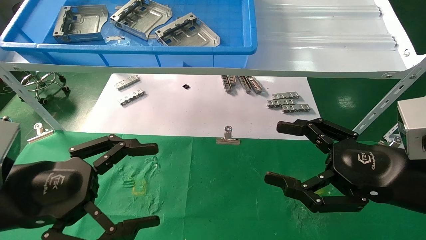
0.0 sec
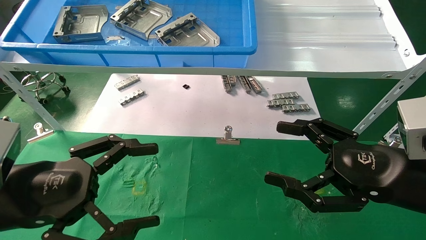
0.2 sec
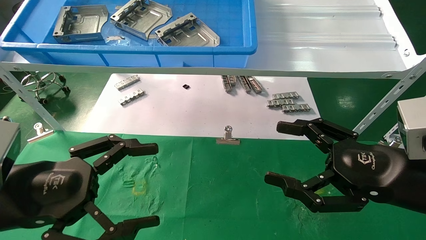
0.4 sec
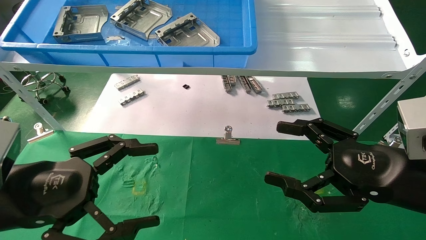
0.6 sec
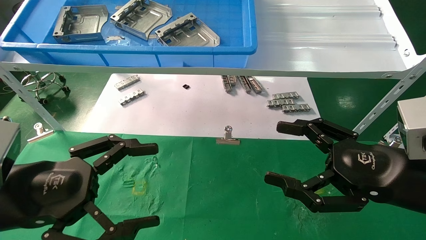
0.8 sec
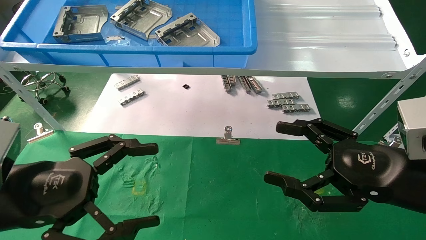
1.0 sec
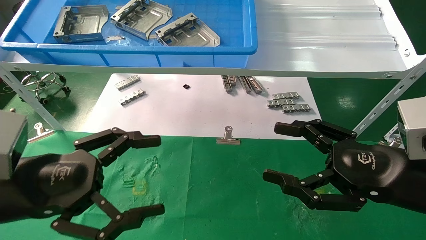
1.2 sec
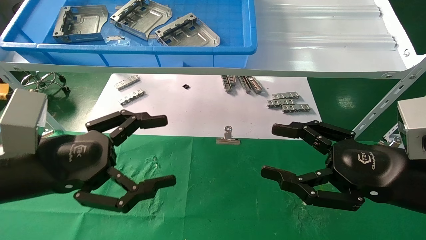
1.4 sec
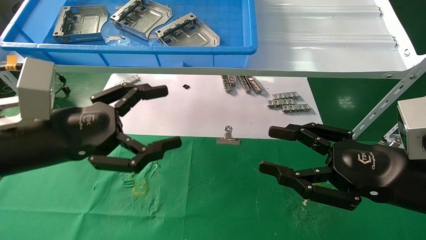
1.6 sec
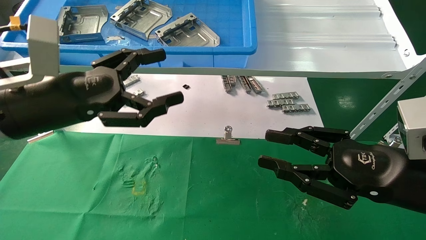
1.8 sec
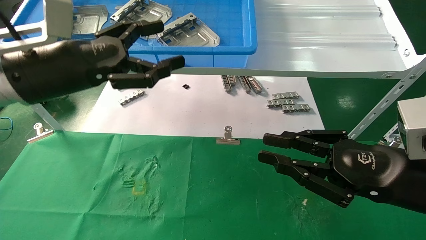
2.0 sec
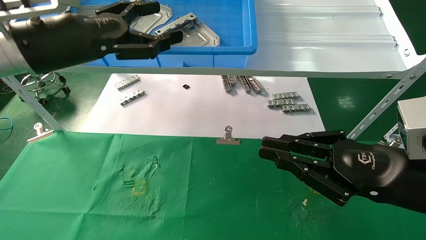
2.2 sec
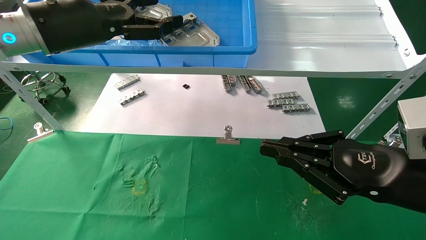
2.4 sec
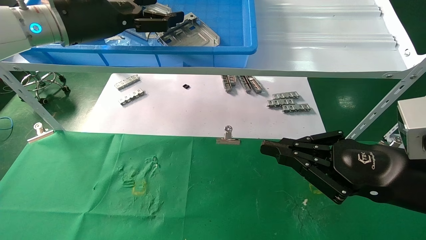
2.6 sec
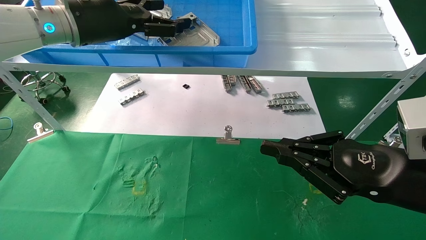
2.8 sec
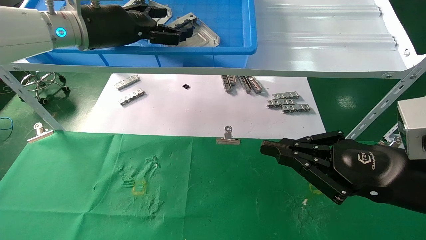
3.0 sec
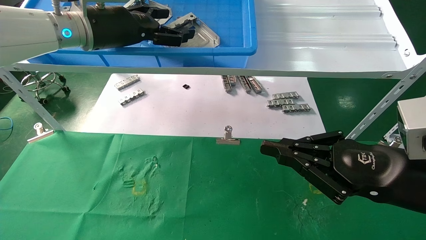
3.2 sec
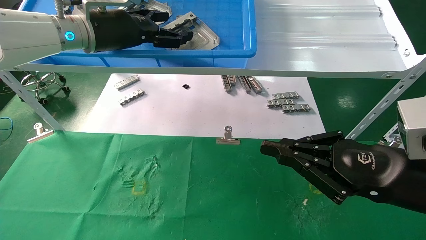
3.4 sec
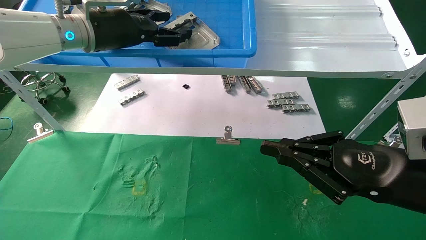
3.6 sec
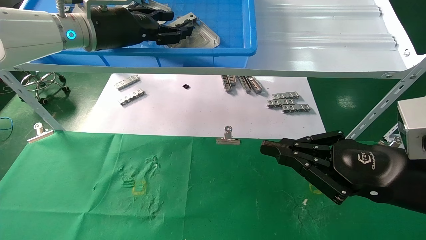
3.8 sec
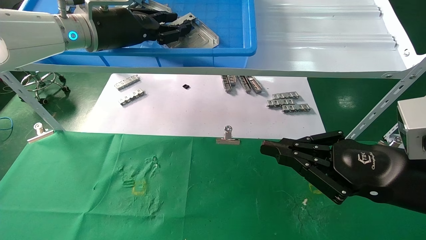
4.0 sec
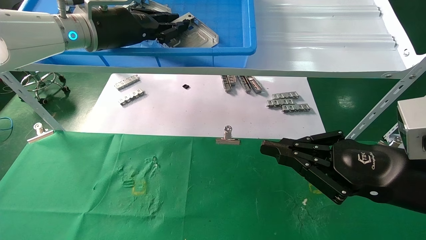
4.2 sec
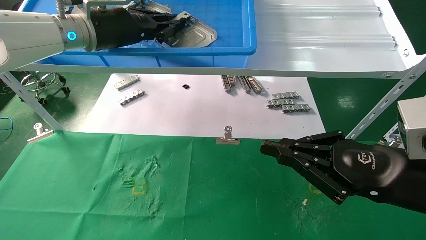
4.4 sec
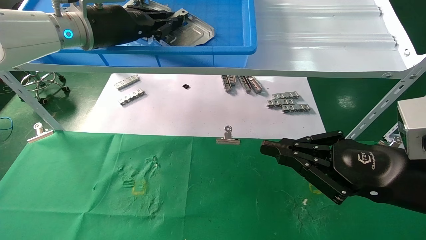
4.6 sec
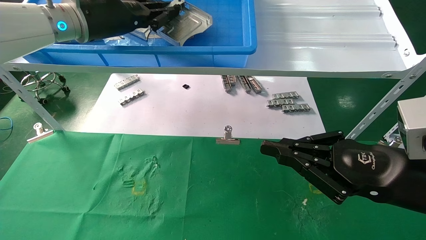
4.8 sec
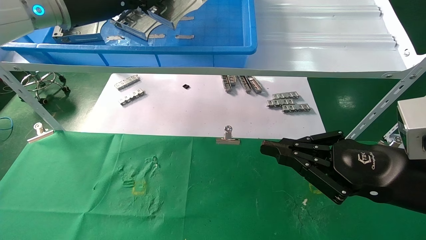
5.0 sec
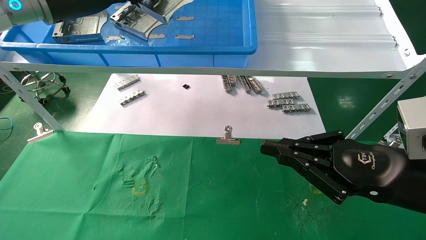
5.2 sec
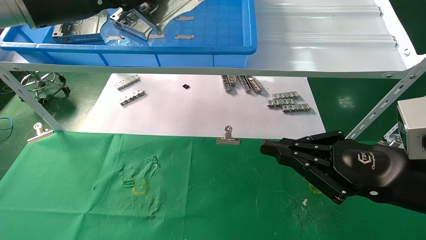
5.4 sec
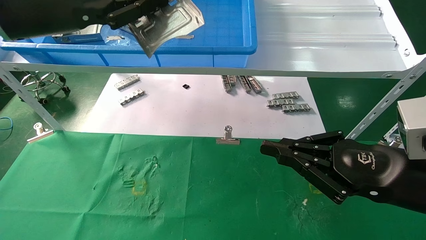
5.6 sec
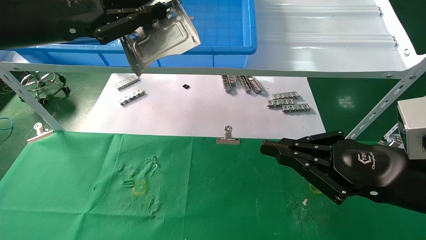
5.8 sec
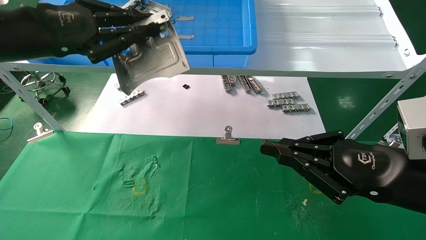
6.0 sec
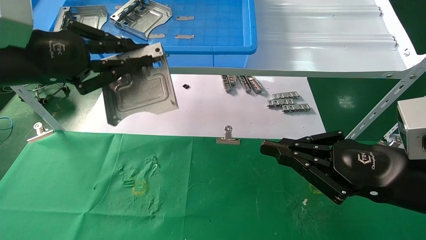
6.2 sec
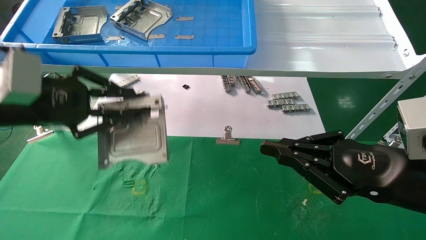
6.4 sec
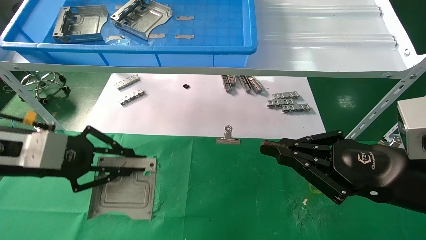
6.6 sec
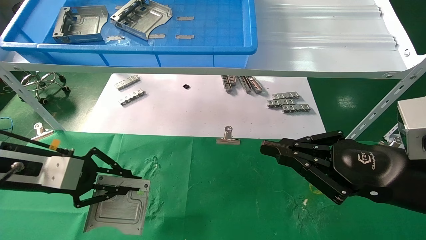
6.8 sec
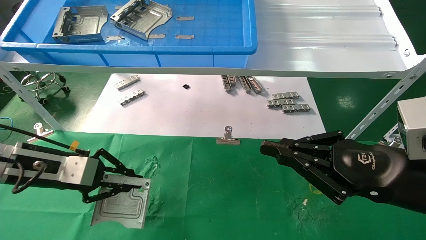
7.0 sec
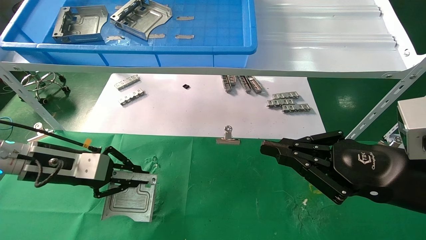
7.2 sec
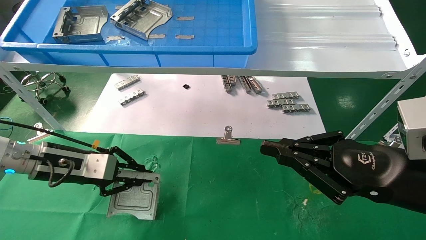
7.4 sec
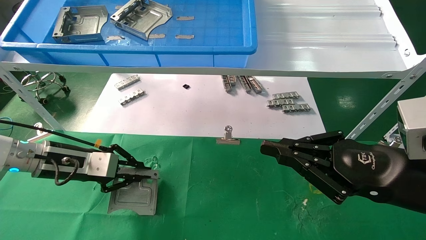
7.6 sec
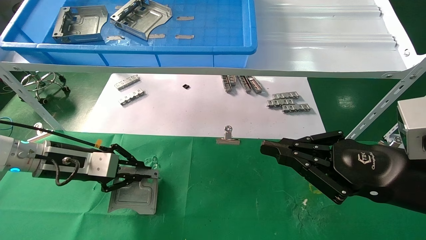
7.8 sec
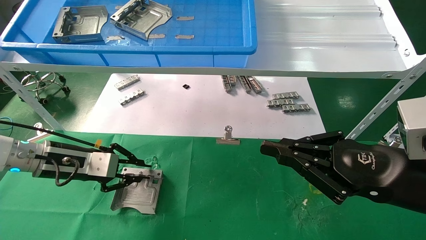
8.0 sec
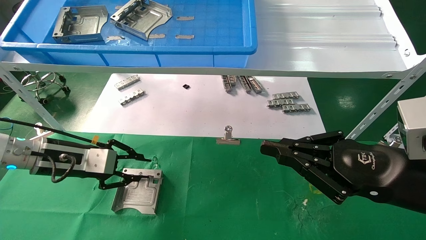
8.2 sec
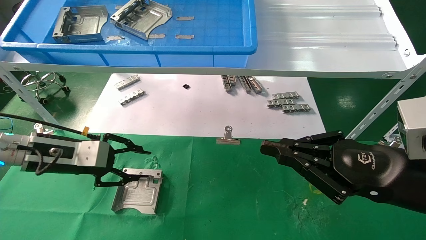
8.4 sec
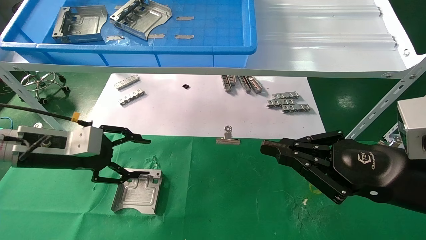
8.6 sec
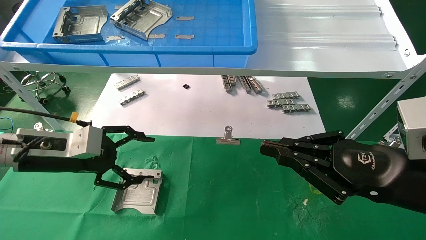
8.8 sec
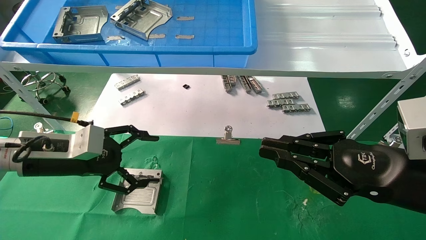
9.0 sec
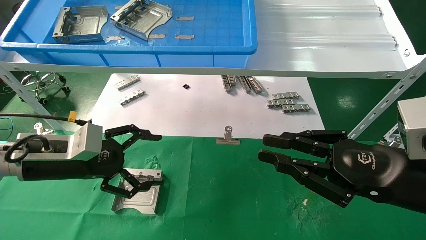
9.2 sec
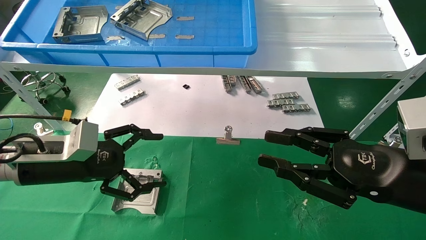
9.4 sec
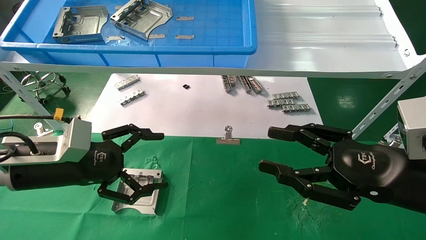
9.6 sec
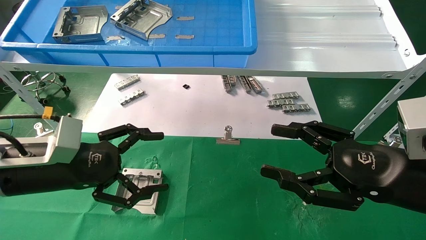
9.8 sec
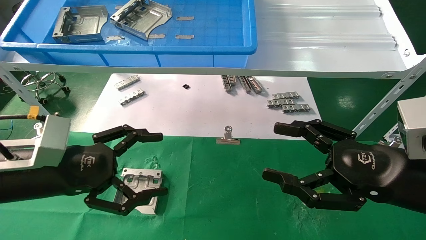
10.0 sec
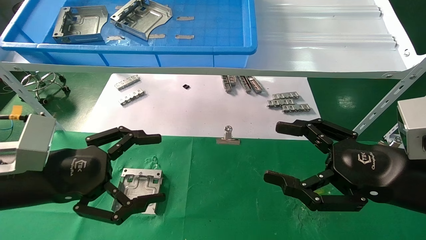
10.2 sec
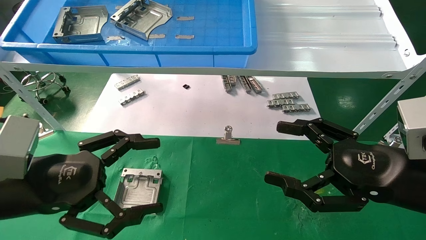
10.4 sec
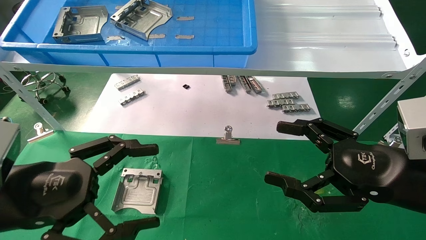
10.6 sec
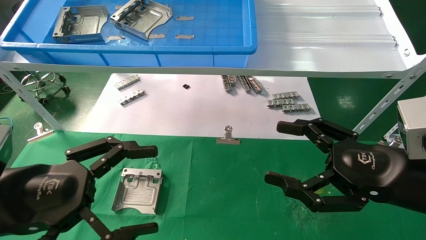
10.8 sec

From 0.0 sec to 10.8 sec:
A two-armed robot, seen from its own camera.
Task of the whole recording: use the mechanical arm to pick up the parts and place them on the table.
Step, from 1.6 sec to 4.4 sec: Pick up the hard drive bracket from the feeding area.
Step, from 4.6 sec to 8.0 sec: Place the hard drive bracket into the box.
From 0.0 sec to 1.6 sec: The left gripper heads forward, covering some 5 cm.
From 1.6 sec to 3.0 sec: The left gripper moves forward and upward, approximately 20 cm; the right gripper closes its fingers.
From 3.0 sec to 4.6 sec: The left gripper closes up.
From 4.6 sec to 6.2 sec: The left gripper is displaced backward, to the left and downward by about 15 cm.
From 6.2 sec to 7.8 sec: The left gripper moves downward and forward, about 20 cm.
From 7.8 sec to 9.2 sec: The left gripper ends up about 5 cm from where it was, and opens up.
From 9.2 sec to 10.8 sec: The left gripper is displaced backward by roughly 15 cm. The right gripper opens its fingers.
